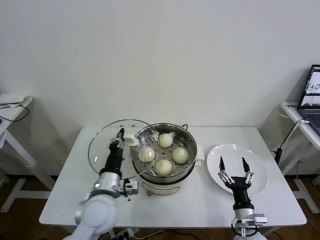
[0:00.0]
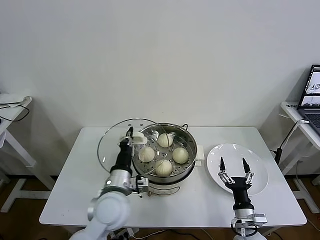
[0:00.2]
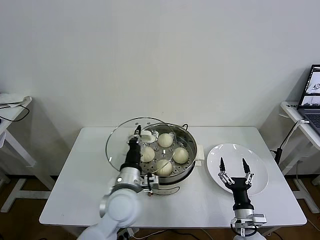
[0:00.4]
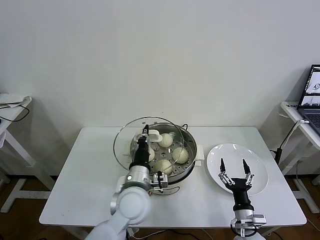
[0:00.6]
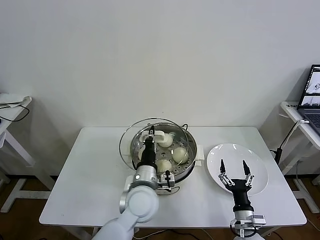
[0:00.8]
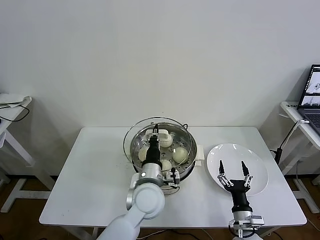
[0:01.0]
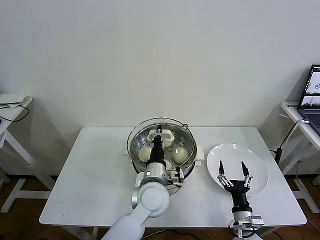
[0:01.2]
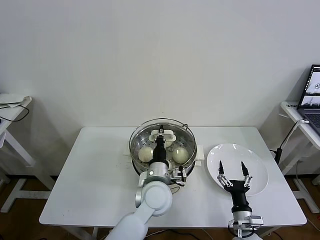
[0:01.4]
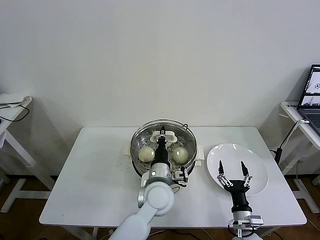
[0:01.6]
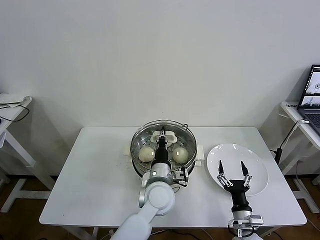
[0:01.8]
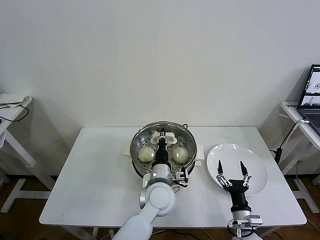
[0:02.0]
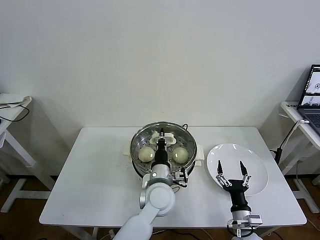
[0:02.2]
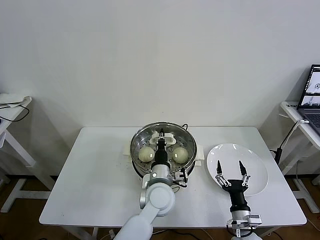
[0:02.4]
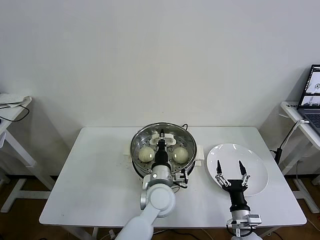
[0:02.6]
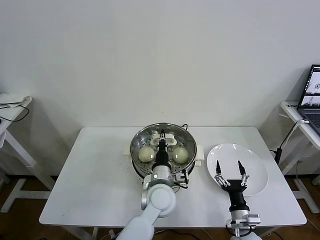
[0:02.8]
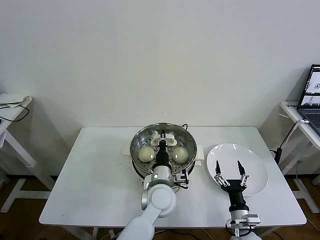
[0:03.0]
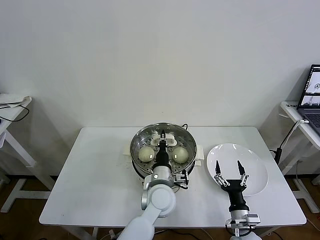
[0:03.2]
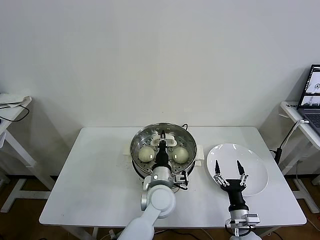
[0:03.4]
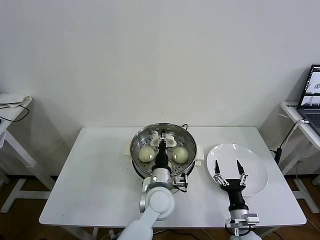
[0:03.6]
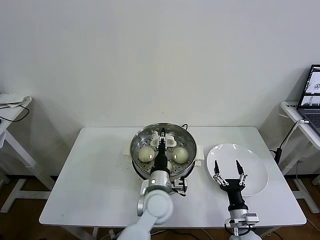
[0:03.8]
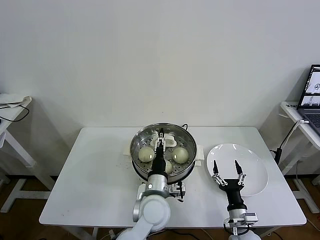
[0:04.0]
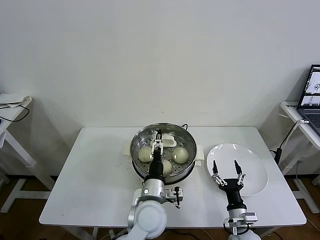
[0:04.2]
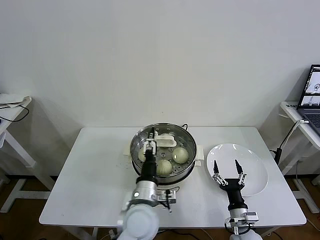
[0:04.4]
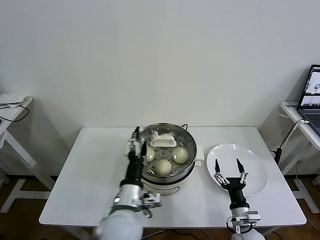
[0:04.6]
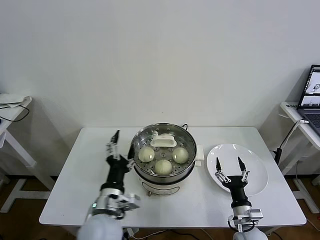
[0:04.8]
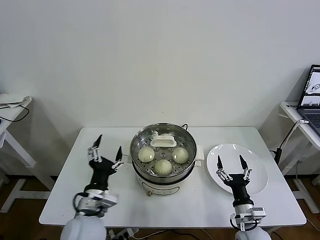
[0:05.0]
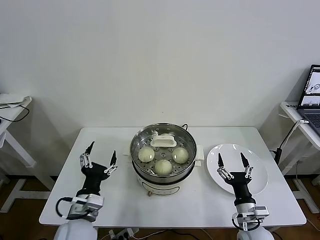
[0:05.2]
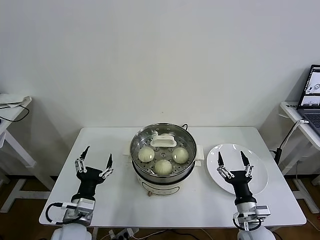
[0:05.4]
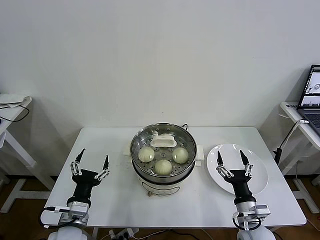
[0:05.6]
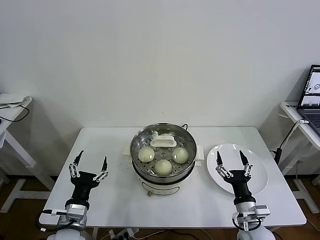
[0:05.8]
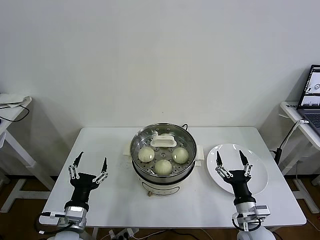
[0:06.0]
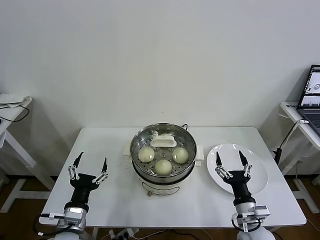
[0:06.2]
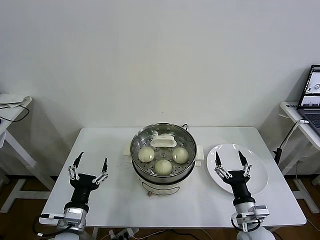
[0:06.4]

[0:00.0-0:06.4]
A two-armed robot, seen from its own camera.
Task of the whole recording: take steamed baozi put them in steamer then cover it.
Step, 0:00.0 to 0:04.2: Place the pot lid on the steamer with left gripper.
0:00.0 to 0:01.6: The left gripper heads to the right, covering approximately 15 cm.
0:01.6 to 0:03.2: The grippers make only small movements.
0:03.2 to 0:04.8: The left gripper shifts roughly 15 cm to the left, backward and upward, and opens.
0:04.8 to 0:06.4: The left gripper heads to the left and downward, covering roughly 15 cm. Meanwhile the right gripper moves upward, some 5 cm.
